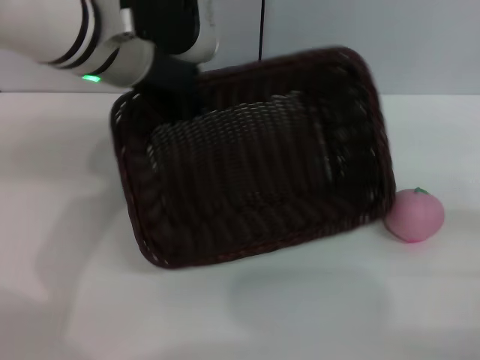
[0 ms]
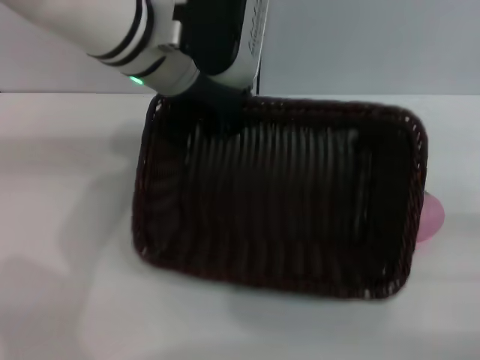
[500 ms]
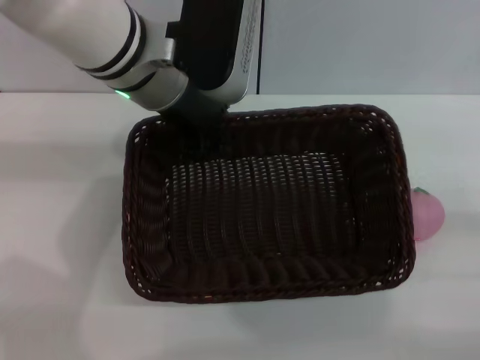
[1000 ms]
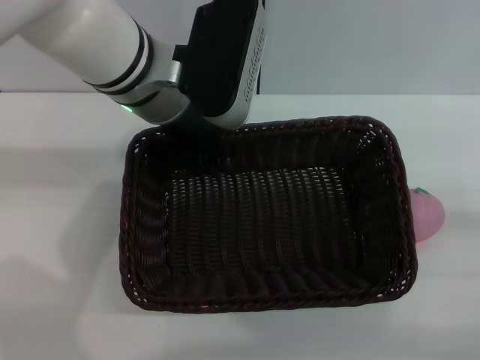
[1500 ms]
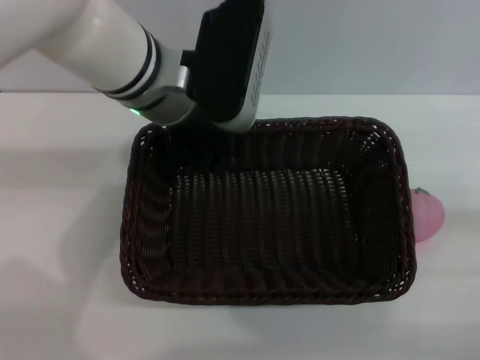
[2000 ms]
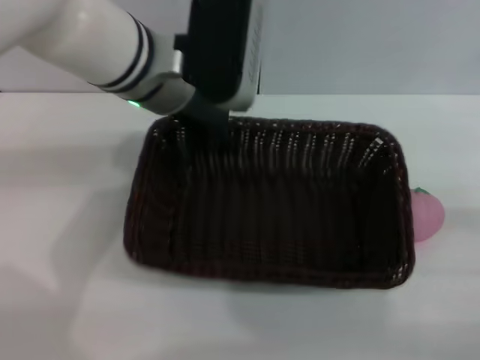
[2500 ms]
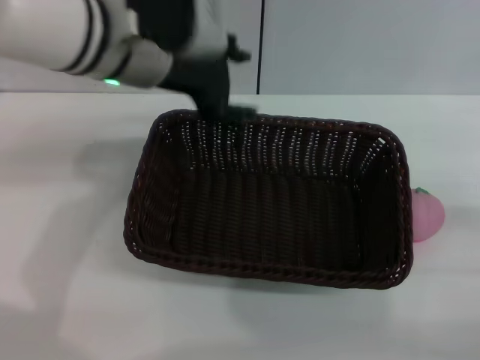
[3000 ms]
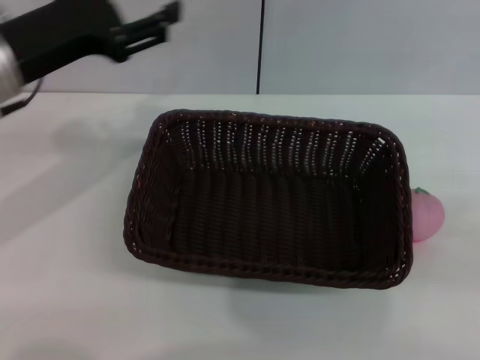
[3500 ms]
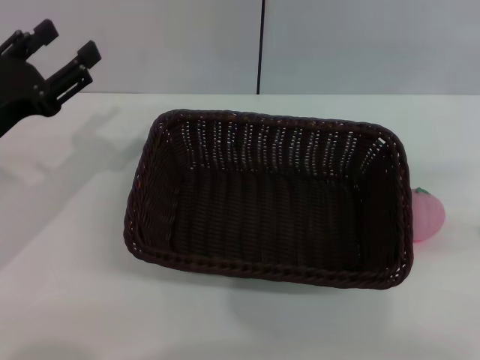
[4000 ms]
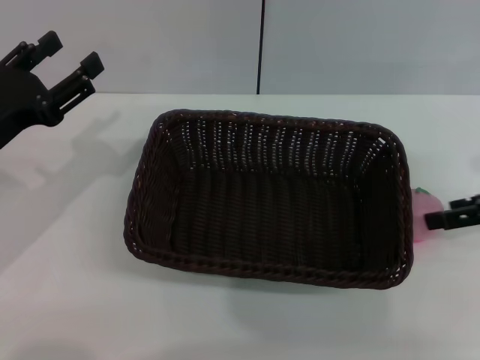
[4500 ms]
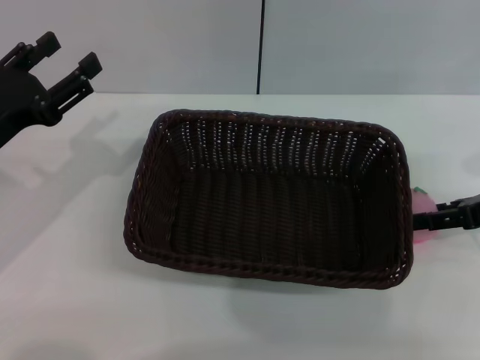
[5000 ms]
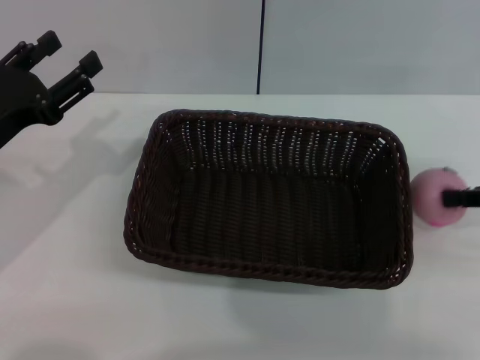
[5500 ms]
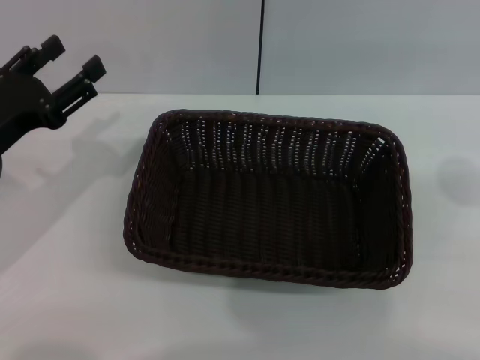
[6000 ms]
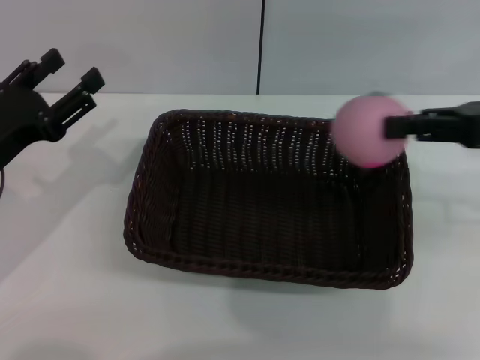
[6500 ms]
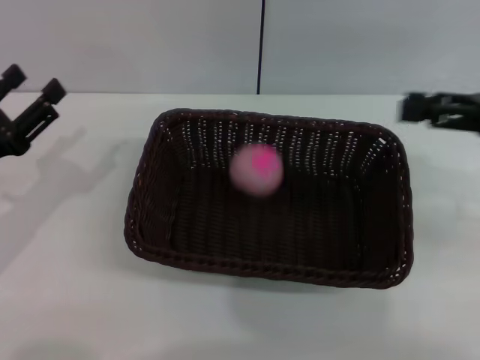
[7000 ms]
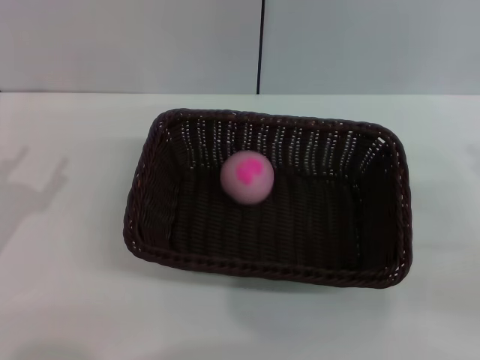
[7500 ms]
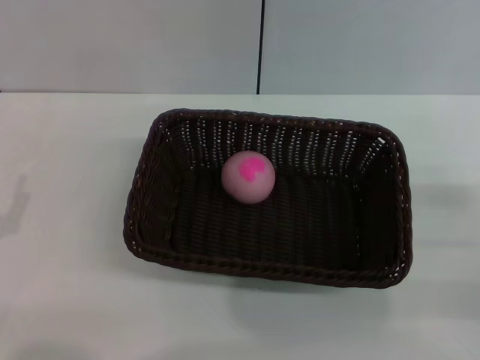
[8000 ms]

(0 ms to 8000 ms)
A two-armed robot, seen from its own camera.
Step, 500 ms - 3000 ms: Place the dark basket in the center of view with the right gripper.
Step, 3500 ms - 5500 ms: Pick up the peach with the left gripper.
Step, 6000 ms - 7500 ms: Place the peach into the basket with the left gripper.
2000 ms - 4000 ms: The right gripper moves upward and forward, roughly 20 cm. Meanwhile the left gripper travels to the left and backward by some 20 cm, and opens up.
4000 ms - 6000 ms: The right gripper moves about 10 cm downward and comes back, and closes up.
6000 ms - 8000 ms: The right gripper moves downward, roughly 15 cm, and opens; the left gripper shifts some 15 cm backward and downward.
